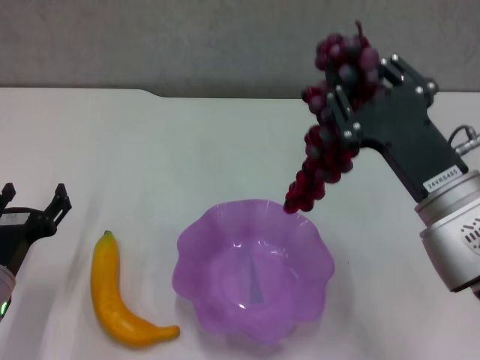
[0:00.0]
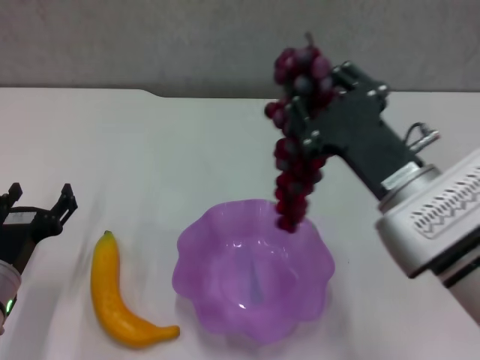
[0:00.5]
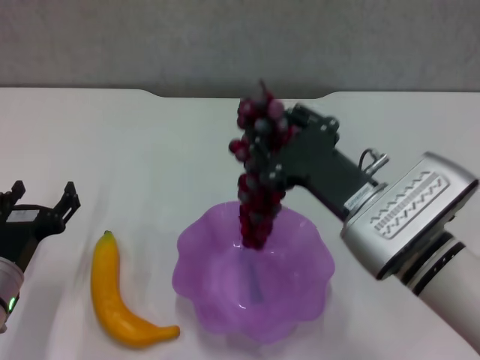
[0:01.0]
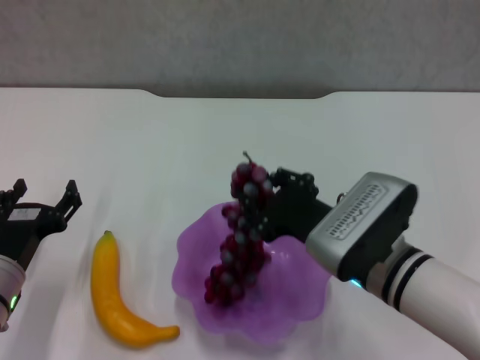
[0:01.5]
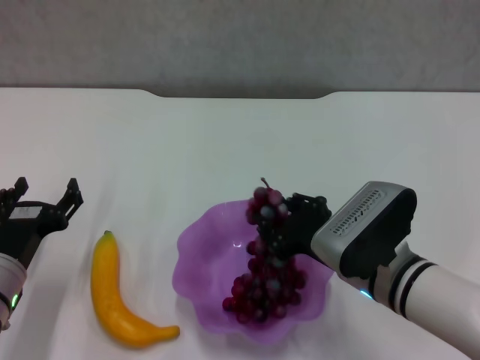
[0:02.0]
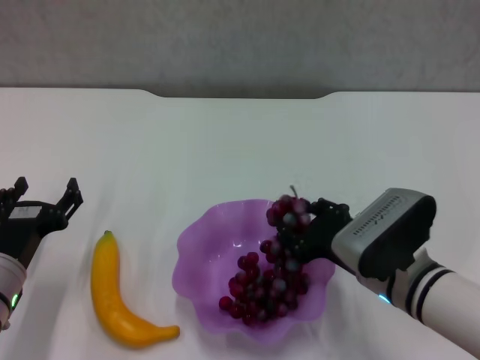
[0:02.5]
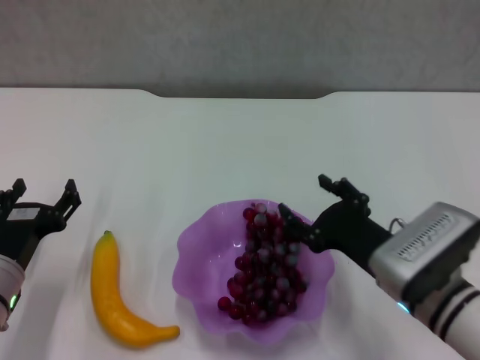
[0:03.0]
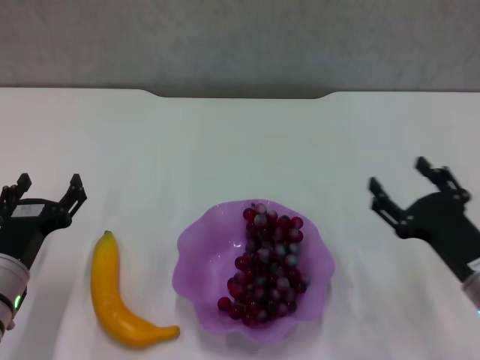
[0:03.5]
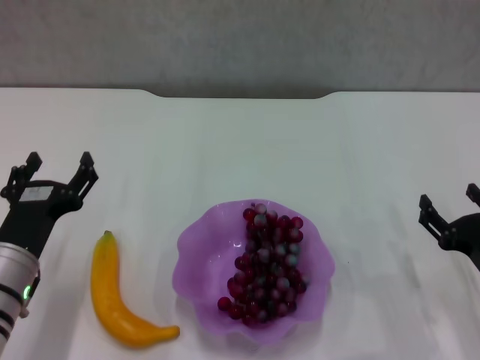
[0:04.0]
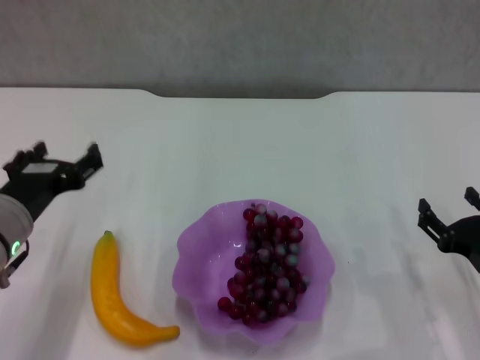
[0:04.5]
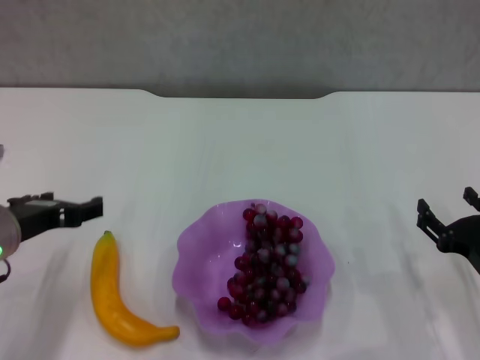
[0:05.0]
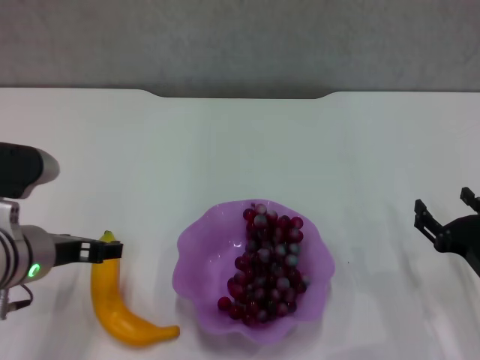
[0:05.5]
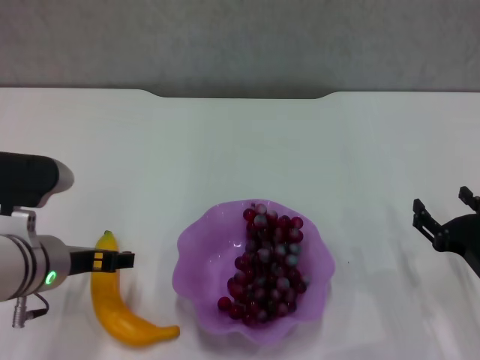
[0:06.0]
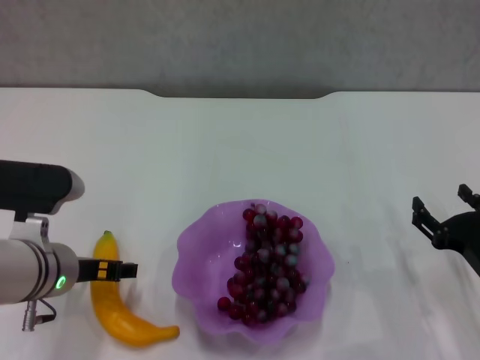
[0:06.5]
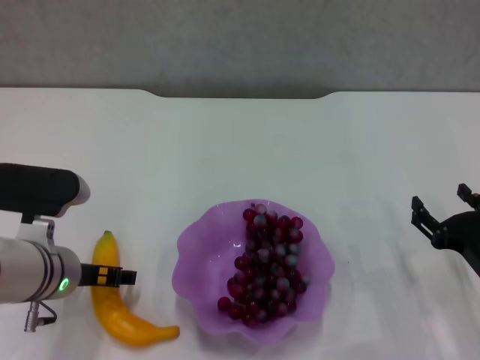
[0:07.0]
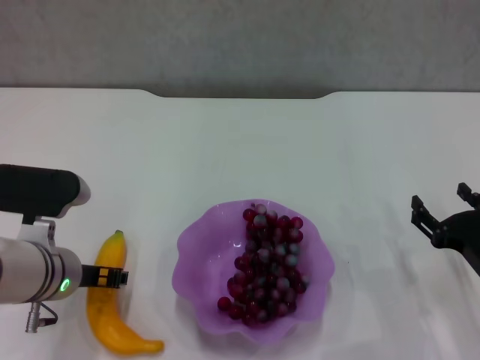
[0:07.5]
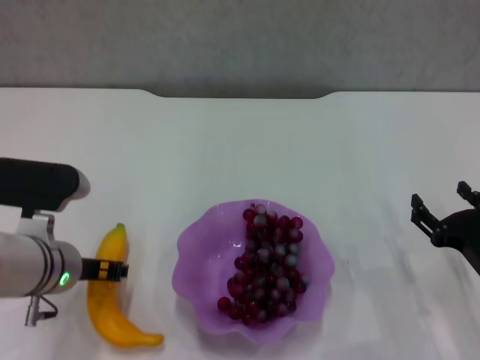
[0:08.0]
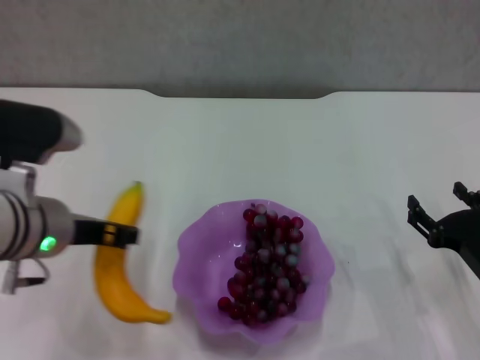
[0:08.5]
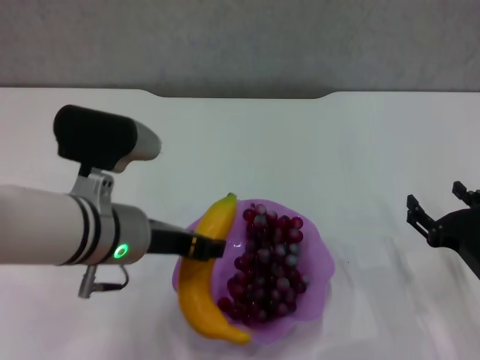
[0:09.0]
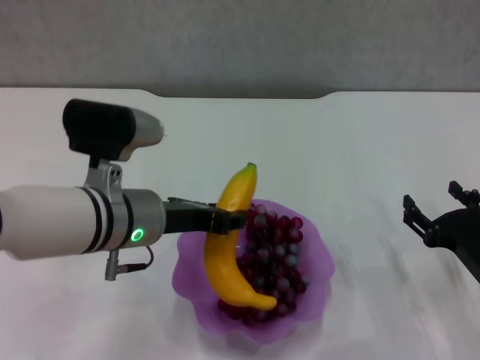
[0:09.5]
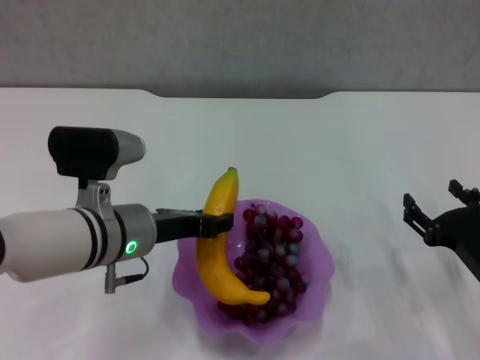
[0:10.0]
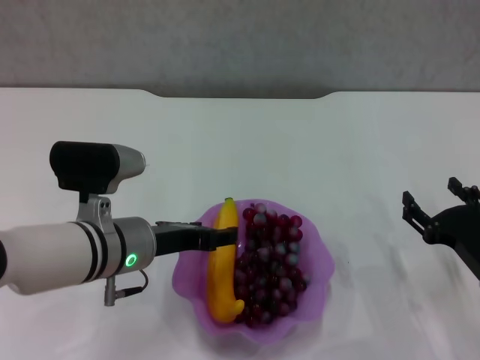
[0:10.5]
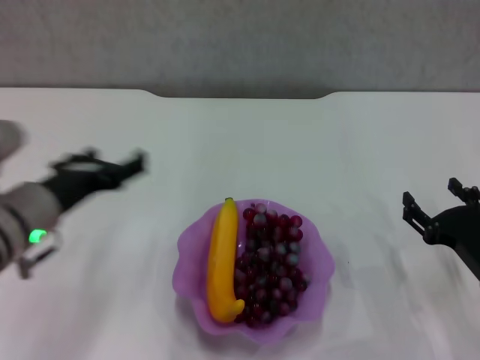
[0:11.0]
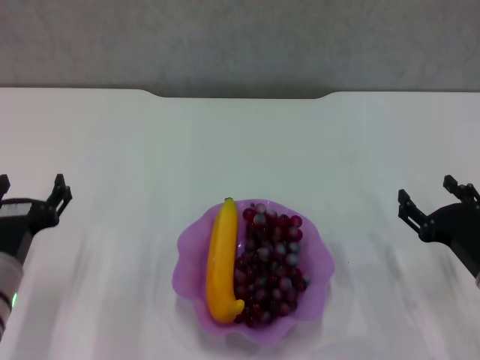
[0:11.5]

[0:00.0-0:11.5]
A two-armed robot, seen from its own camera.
Step, 0:00.0 to 0:03.0: Place the grape in the purple plate with right gripper.
Step, 0:03.5 to 0:07.5: Grasp the banana with left gripper.
Step, 0:08.0 to 0:10.5: Place the banana in the purple plate with left gripper.
0:00.0 to 0:02.0: The right gripper is displaced downward by approximately 10 cm.
0:02.0 to 0:04.0: The right gripper is displaced to the right by about 15 cm, and opens its fingers.
0:04.0 to 0:06.0: The left gripper goes roughly 5 cm upward.
0:06.0 to 0:07.5: The left gripper closes.
0:07.5 to 0:09.5: The left gripper shifts some 10 cm to the right and upward, and closes its fingers.
0:09.5 to 0:11.5: The left gripper shifts some 15 cm to the left, downward and backward, and opens its fingers.
